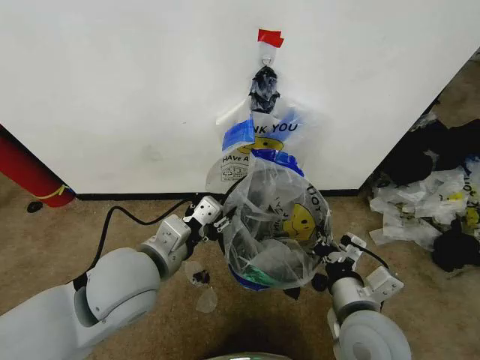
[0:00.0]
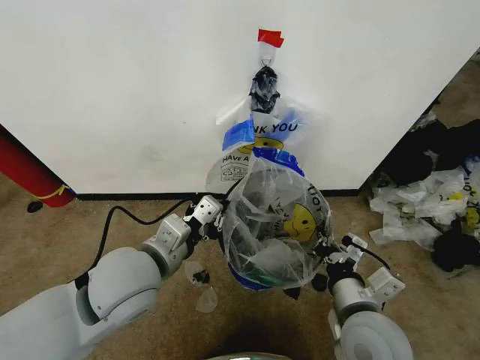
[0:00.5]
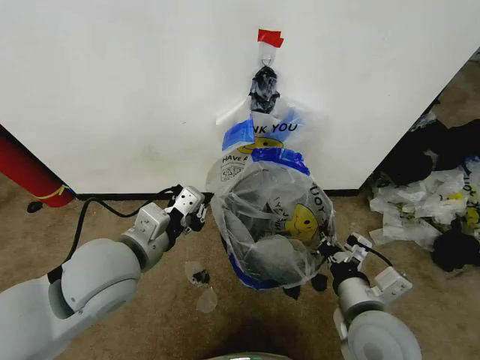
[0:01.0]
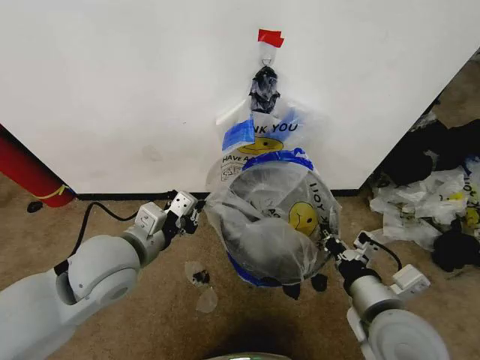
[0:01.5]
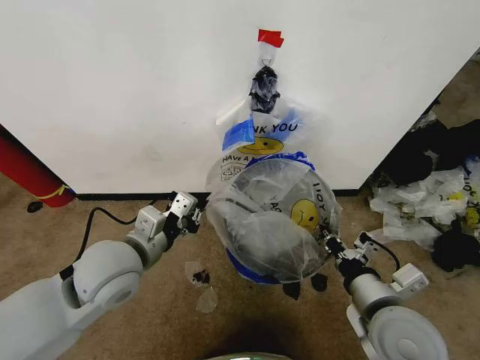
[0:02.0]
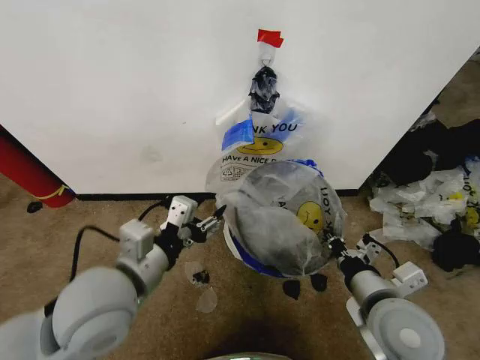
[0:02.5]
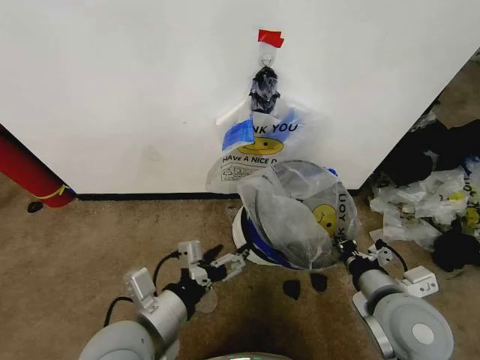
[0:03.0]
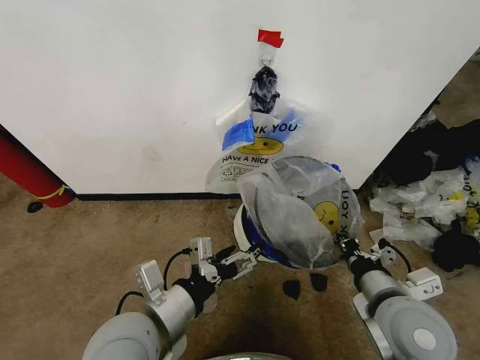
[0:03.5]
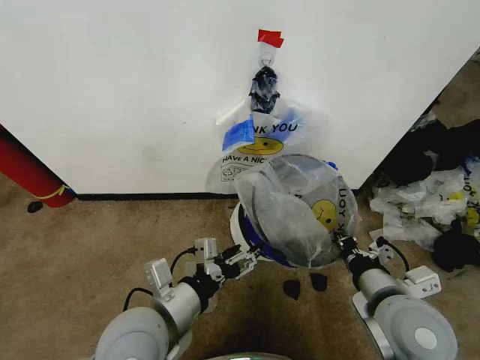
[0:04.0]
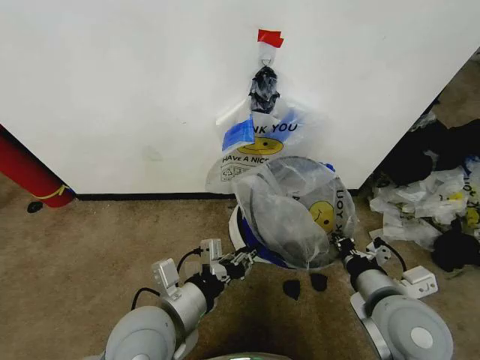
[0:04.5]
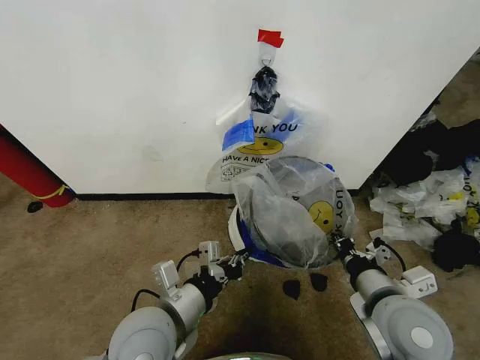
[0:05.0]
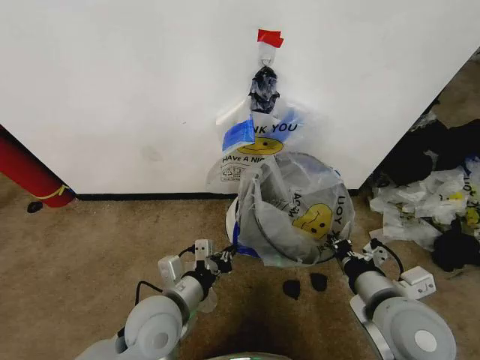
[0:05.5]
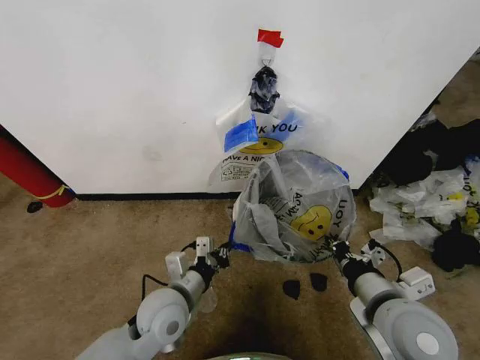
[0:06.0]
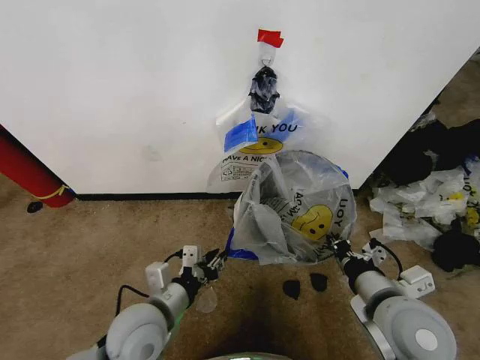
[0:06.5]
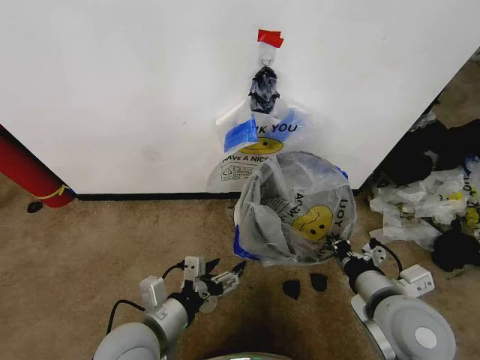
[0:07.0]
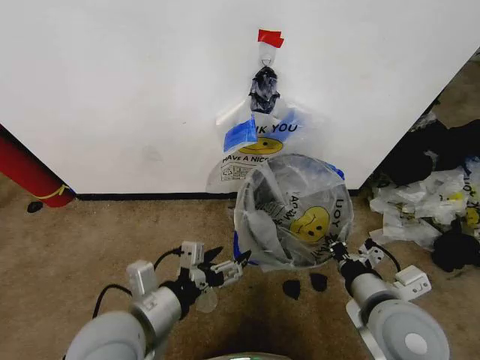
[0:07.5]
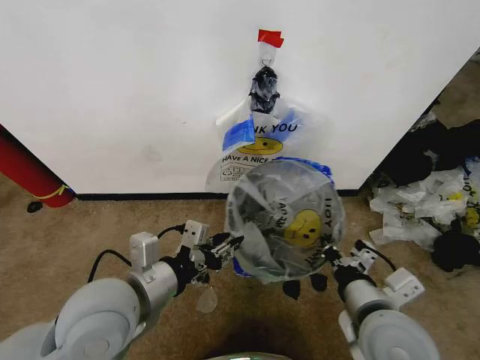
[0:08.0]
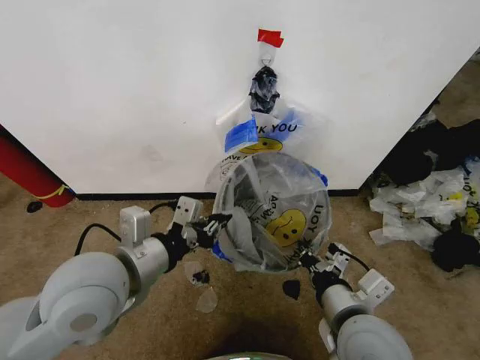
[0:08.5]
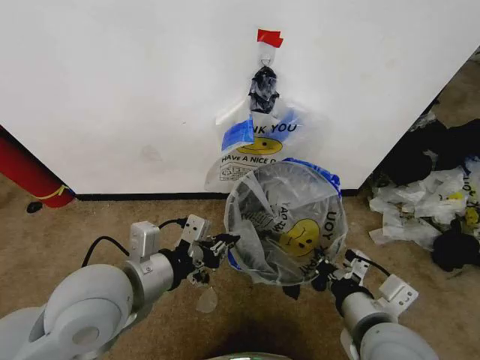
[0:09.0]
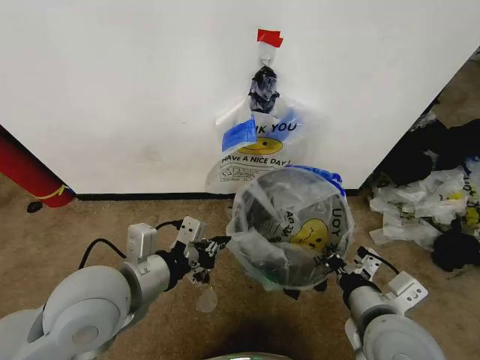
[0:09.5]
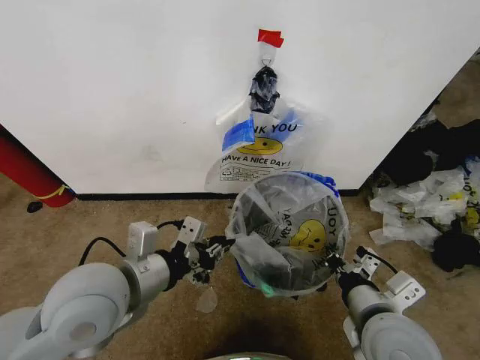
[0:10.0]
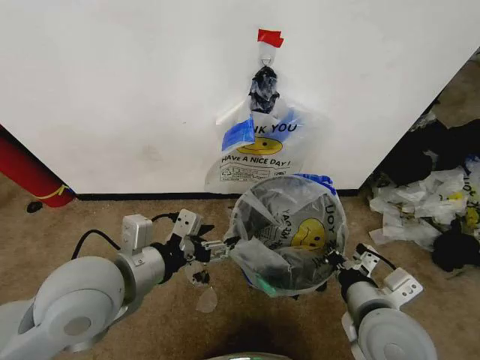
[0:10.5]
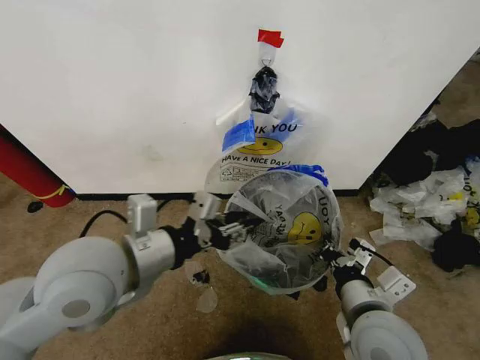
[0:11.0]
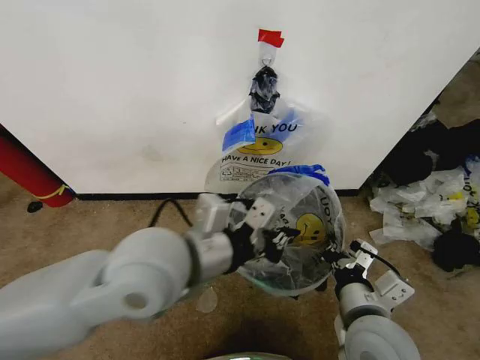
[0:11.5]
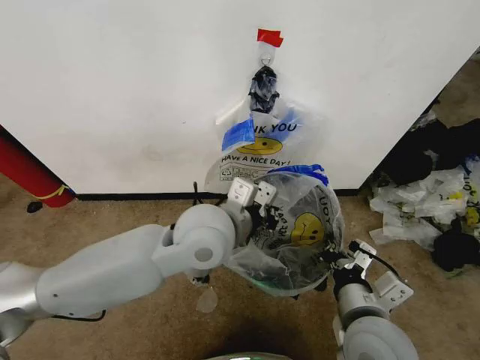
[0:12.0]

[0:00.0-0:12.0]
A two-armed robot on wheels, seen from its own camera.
Task of the whole recording: Pick up the garbage bag from the wall and place it over the trash bin.
0:00.0 to 0:02.0: The left gripper moves roughly 5 cm, and closes.
0:02.0 to 0:04.0: The left gripper goes approximately 10 cm backward and to the right, and opens up.
0:04.0 to 0:06.0: The left gripper travels downward and forward by roughly 10 cm, and closes.
0:06.0 to 0:08.0: The left gripper moves upward, about 15 cm, and opens up.
0:08.0 to 0:10.0: The grippers move only a little.
0:10.0 to 0:12.0: The left gripper shifts approximately 15 cm to the right and forward, and opens, then closes again.

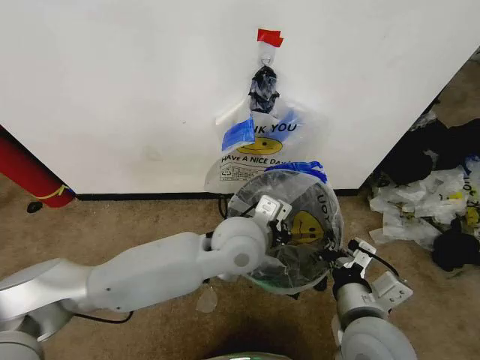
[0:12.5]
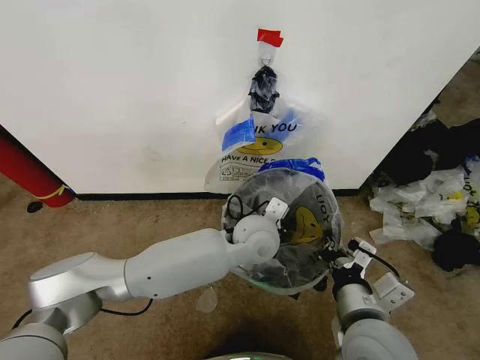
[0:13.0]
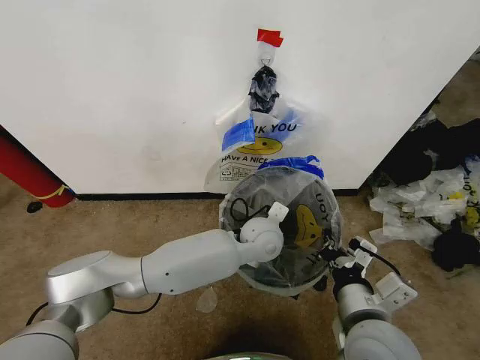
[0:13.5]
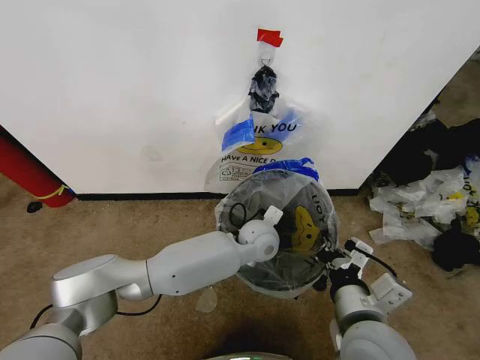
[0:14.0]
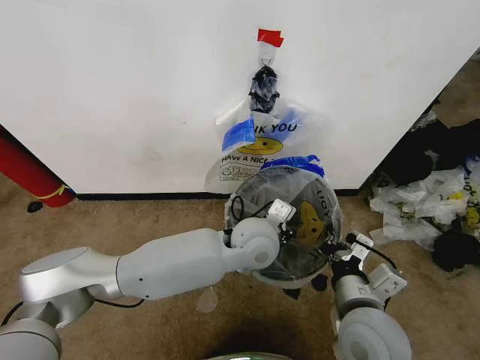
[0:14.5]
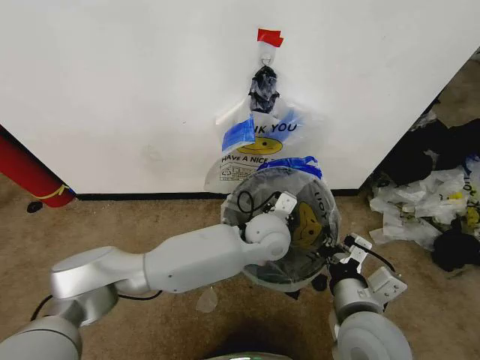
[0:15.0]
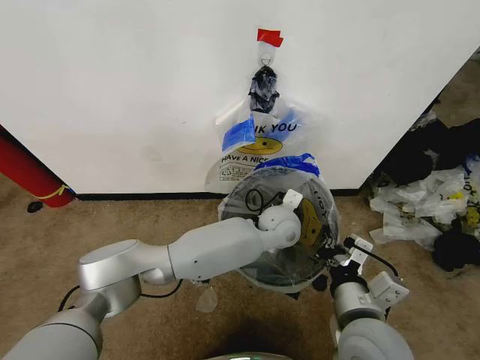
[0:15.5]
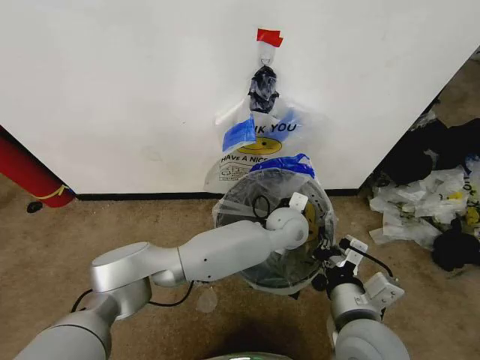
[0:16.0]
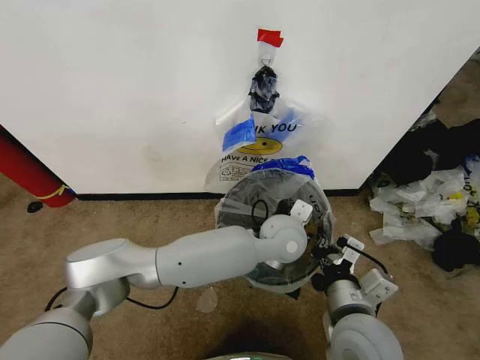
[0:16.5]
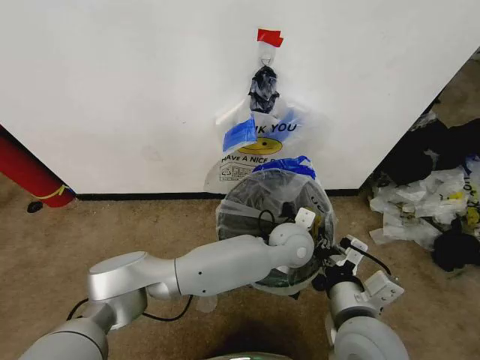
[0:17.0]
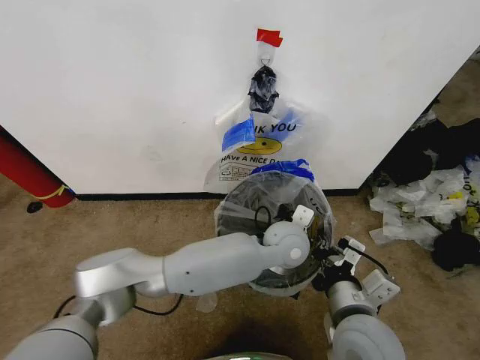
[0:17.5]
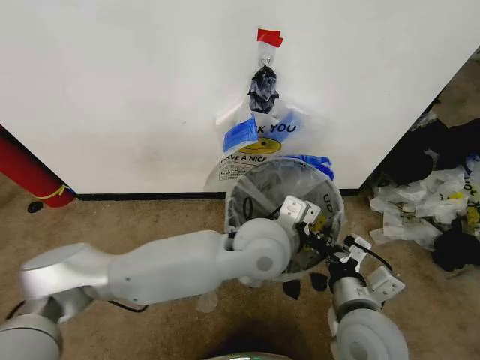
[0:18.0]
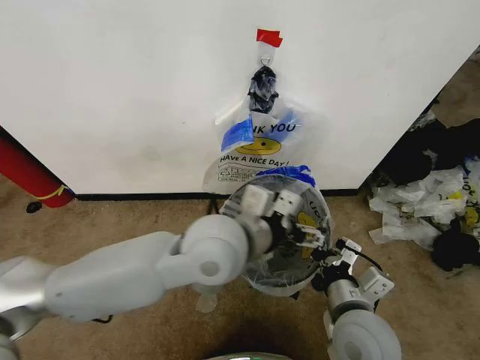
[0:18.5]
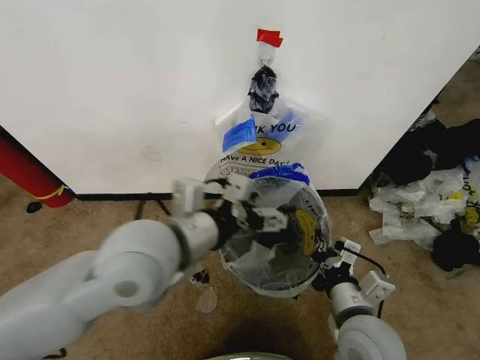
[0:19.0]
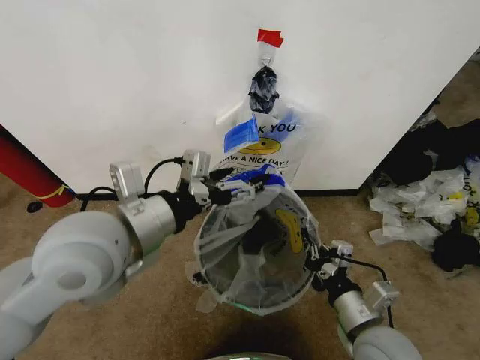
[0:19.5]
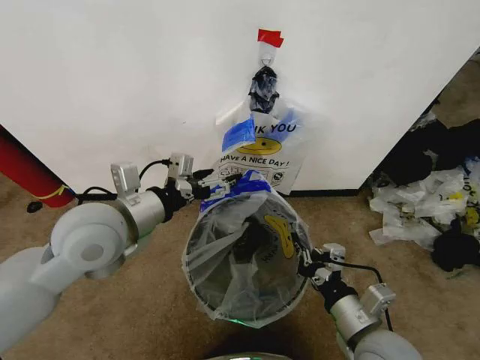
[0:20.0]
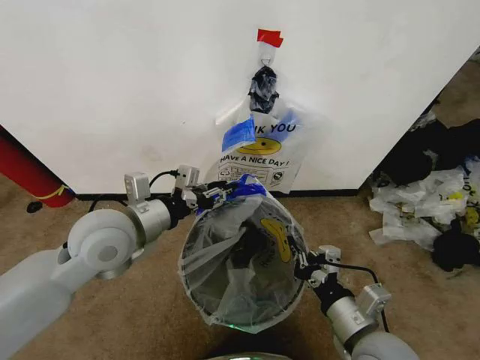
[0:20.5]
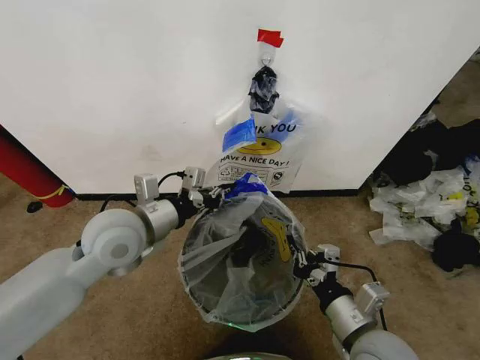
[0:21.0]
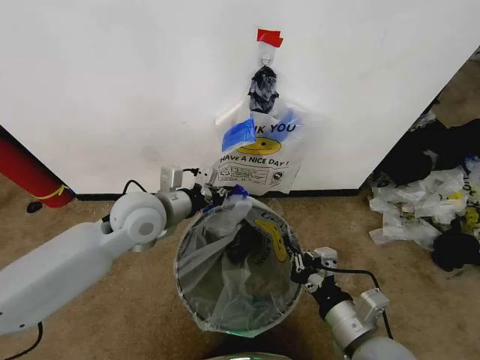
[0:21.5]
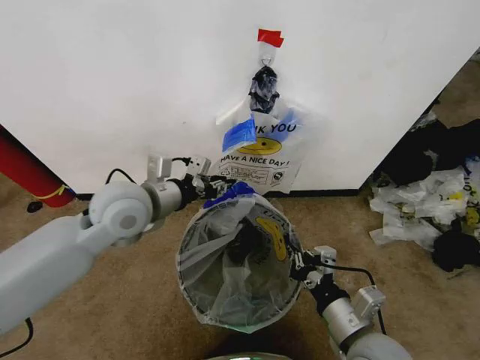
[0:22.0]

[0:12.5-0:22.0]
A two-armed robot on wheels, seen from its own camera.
Task of the whole recording: Pick up the garbage bag from the wall and place it over the trash bin.
0:14.5 to 0:16.5: The left gripper heads to the right, covering roughly 5 cm.
0:16.5 to 0:18.0: The left gripper is displaced backward and upward by about 10 cm, and opens its fingers.
0:18.0 to 0:20.0: The left gripper heads to the left, covering approximately 25 cm, and opens up.
0:20.0 to 0:22.0: The left gripper travels forward by approximately 5 cm, and closes up.

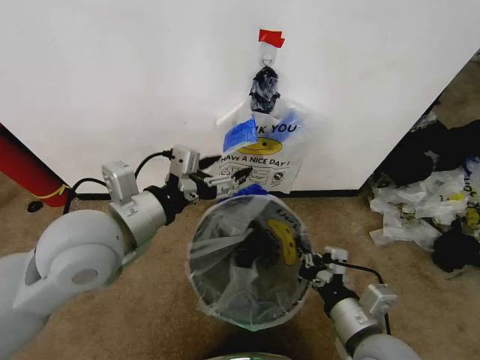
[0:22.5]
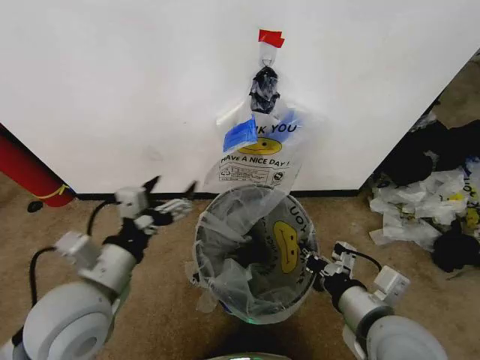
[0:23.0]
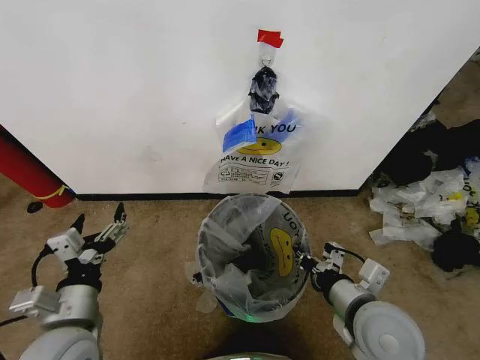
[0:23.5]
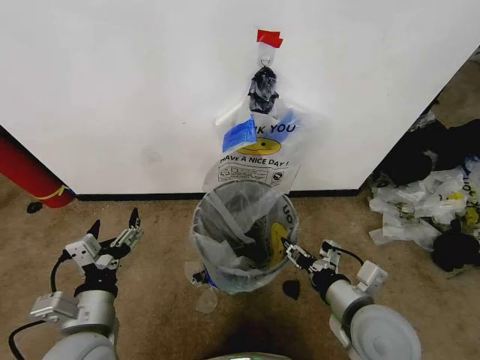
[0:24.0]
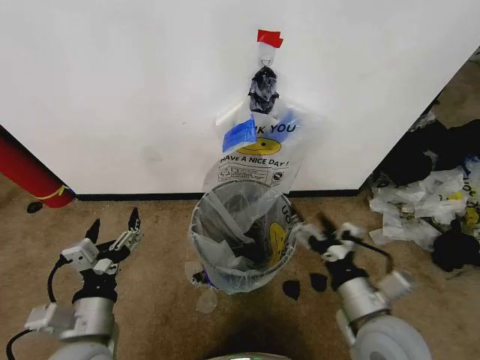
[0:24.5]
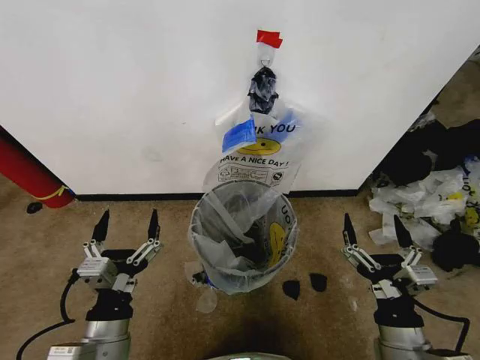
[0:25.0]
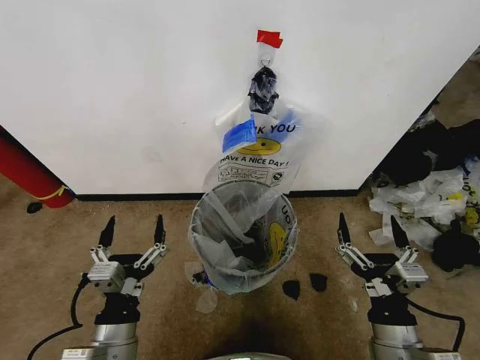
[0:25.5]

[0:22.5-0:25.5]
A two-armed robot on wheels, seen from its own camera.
Task of the whole recording: Pick up the garbage bag from the wall and place it over the trash bin.
0:22.5 to 0:24.0: The left gripper moves downward and backward, some 20 cm, while the right gripper opens its fingers.
0:24.0 to 0:25.5: The left gripper ends up about 5 cm from where it was; the right gripper moves backward, roughly 10 cm, and opens up.
